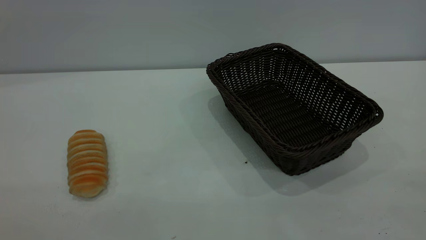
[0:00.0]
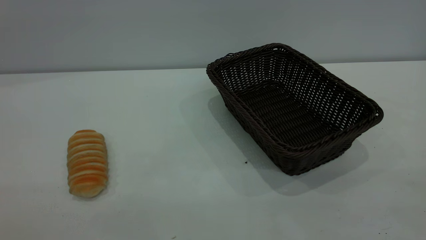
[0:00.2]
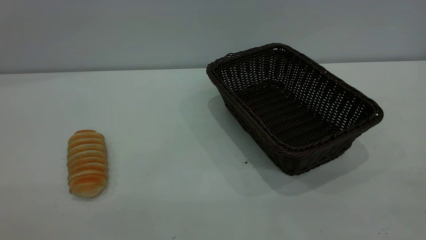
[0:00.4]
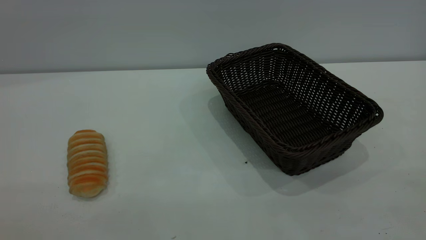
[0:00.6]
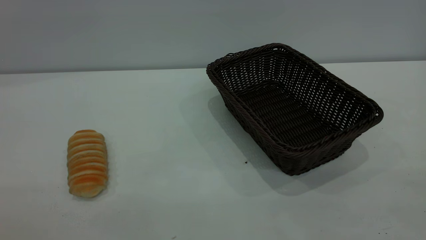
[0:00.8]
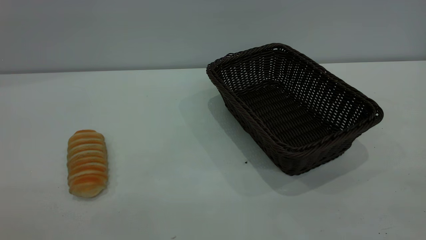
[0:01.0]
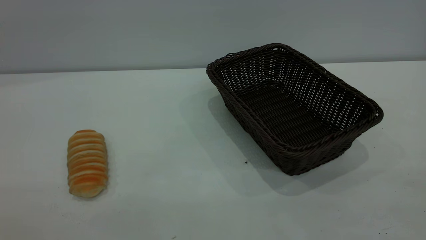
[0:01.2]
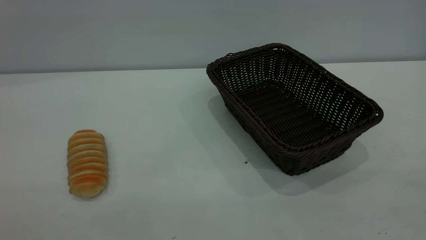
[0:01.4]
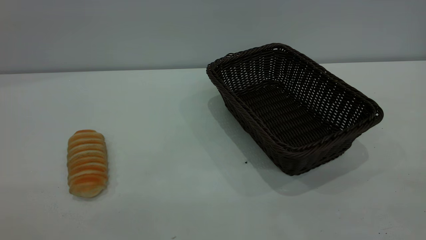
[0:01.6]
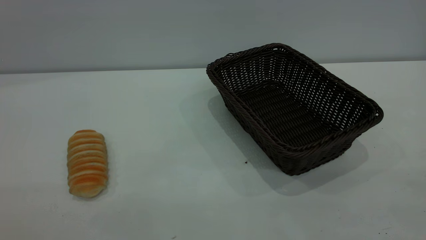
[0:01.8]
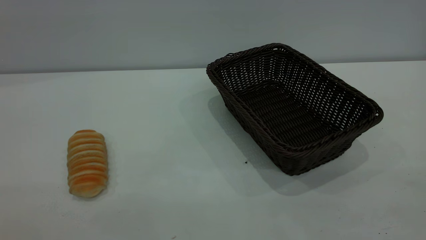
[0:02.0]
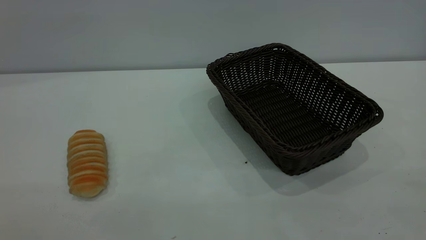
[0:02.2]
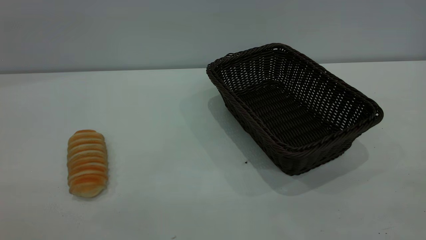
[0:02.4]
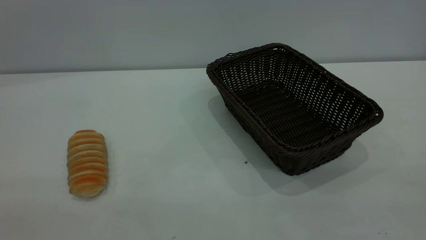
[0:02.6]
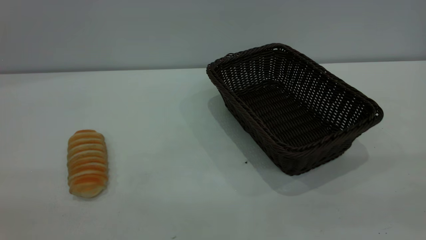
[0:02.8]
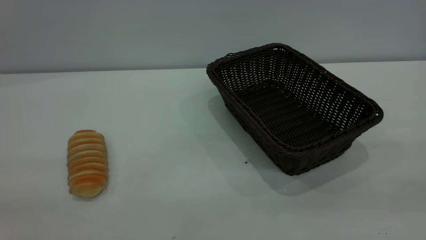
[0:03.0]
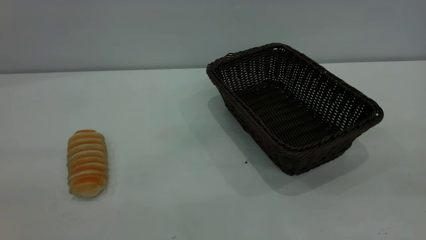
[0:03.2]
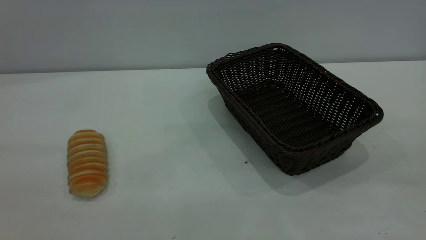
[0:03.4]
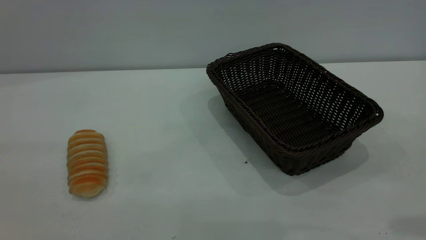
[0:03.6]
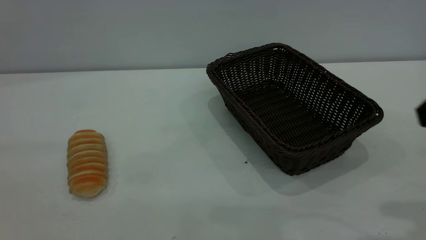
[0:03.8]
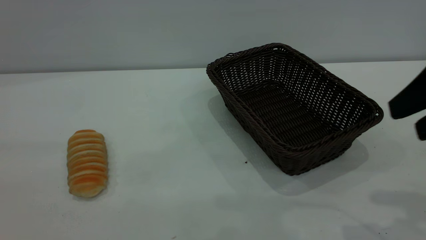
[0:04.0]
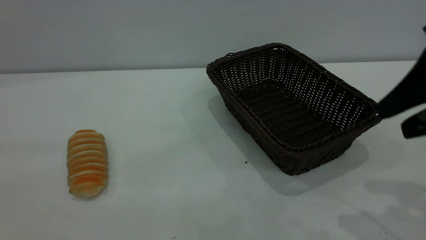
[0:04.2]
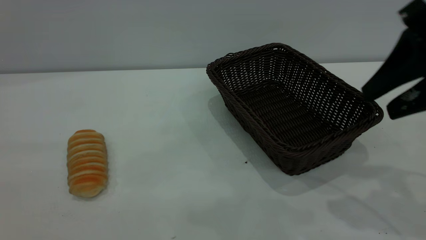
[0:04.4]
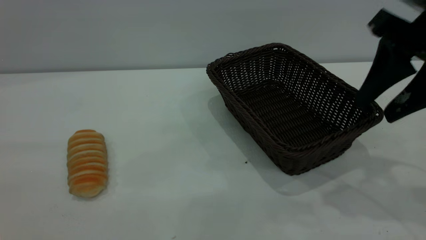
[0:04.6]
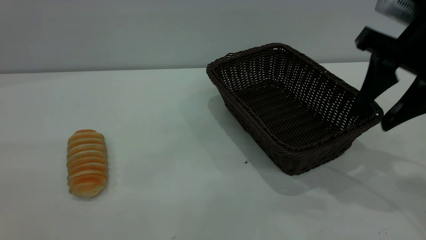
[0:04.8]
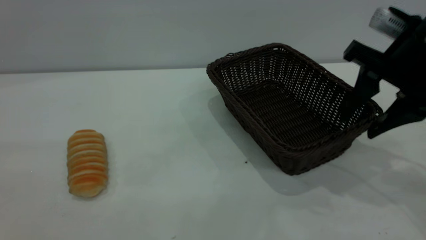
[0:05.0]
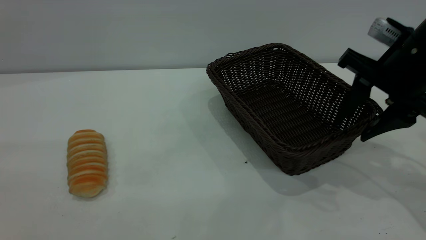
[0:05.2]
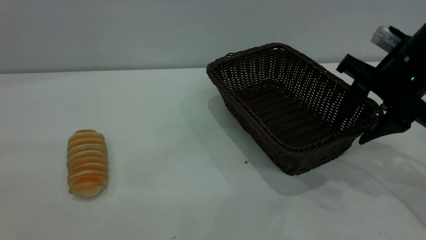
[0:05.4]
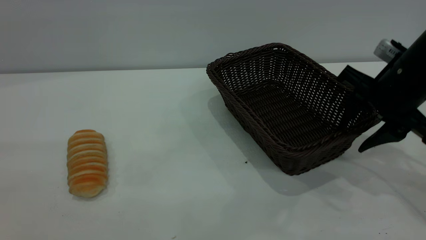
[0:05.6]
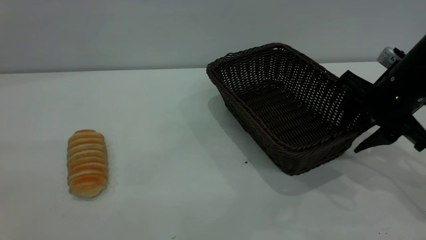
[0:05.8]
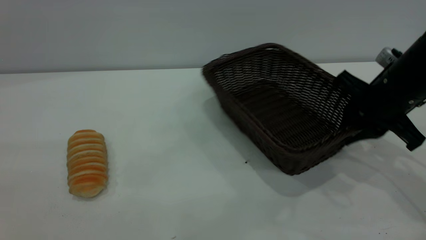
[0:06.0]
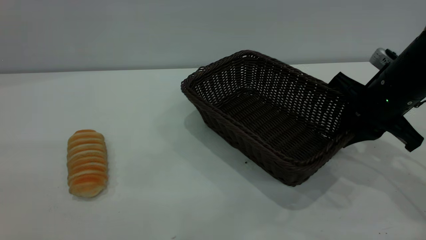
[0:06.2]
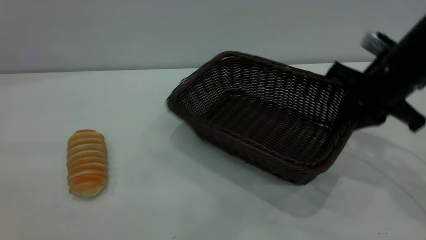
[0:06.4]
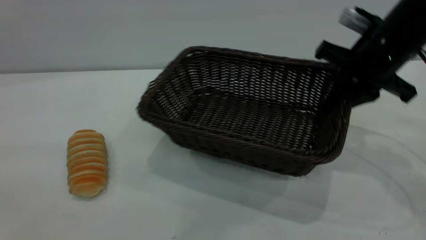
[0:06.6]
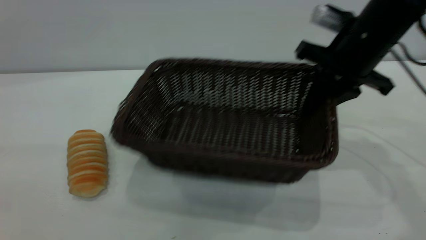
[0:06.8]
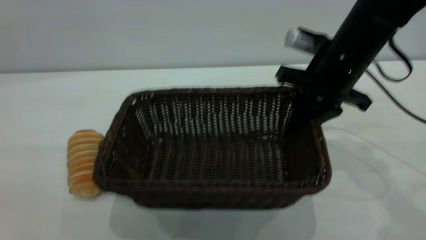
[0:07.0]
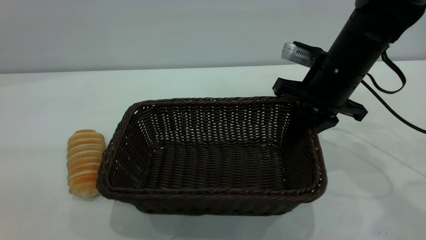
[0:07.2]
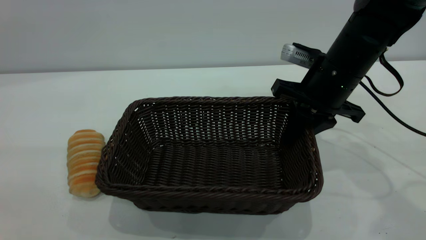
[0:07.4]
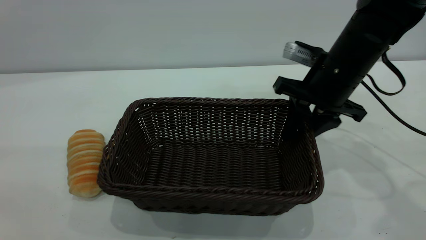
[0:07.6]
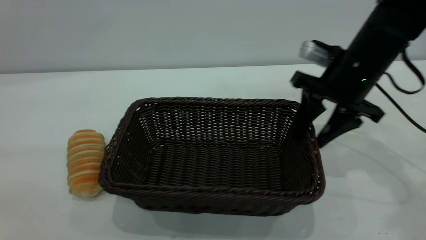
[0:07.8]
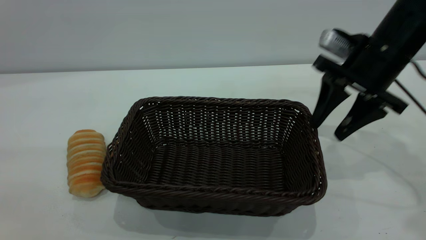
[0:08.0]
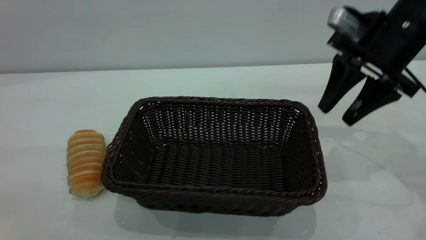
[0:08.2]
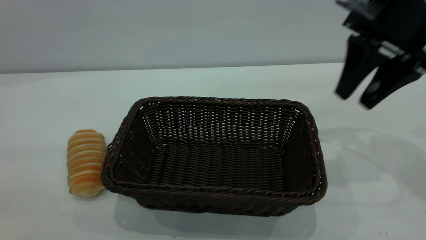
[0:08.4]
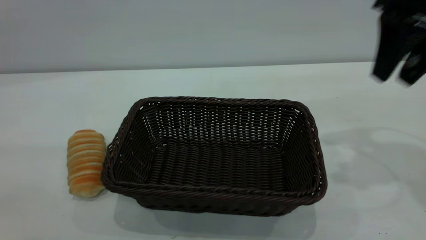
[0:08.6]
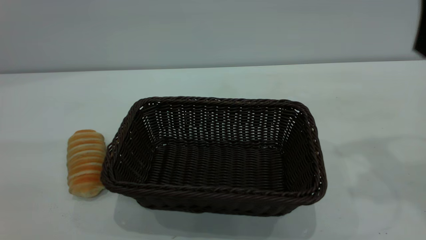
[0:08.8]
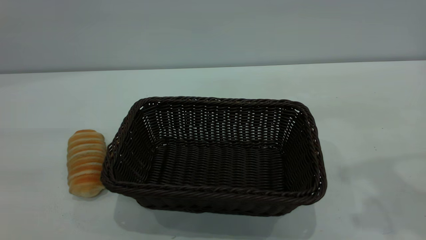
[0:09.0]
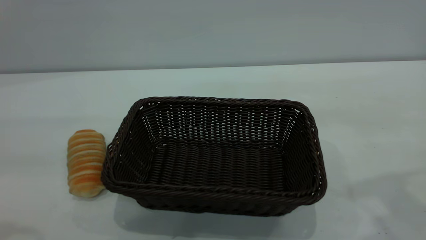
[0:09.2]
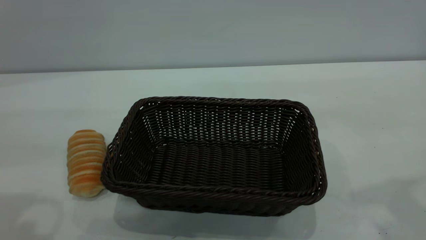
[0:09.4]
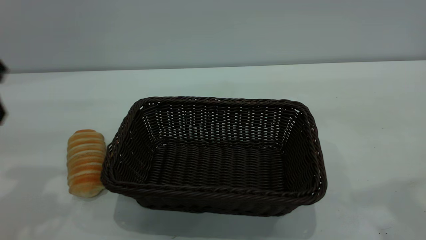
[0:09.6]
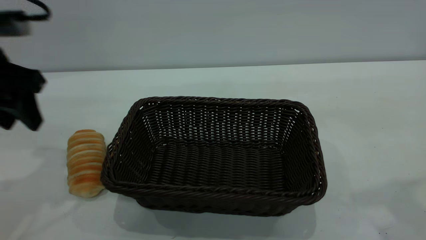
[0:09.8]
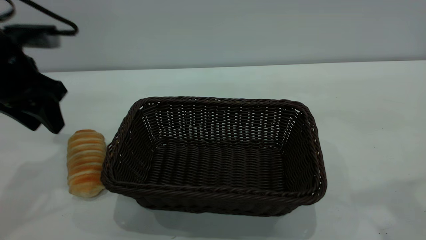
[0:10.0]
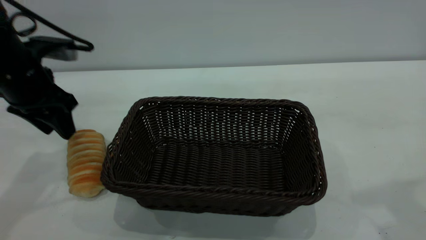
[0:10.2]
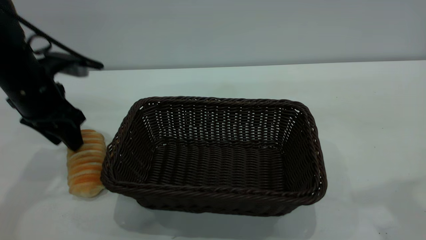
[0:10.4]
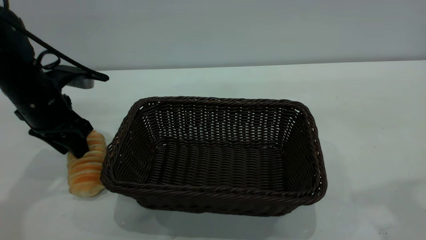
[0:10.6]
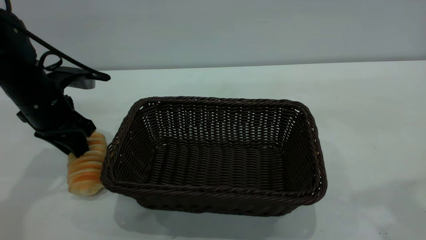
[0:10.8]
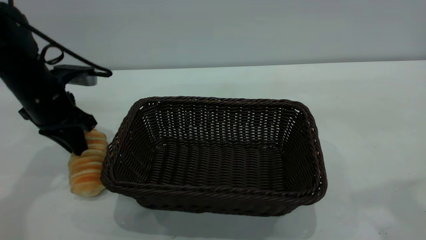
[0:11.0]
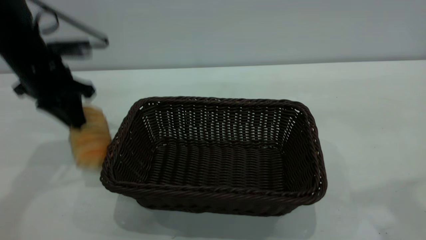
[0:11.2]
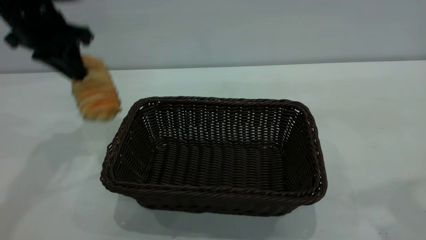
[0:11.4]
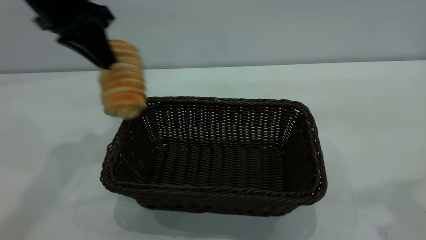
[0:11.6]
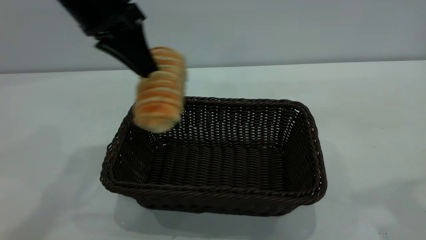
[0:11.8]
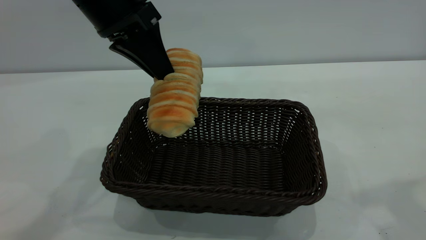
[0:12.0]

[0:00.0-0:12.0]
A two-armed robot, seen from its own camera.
Task of the whole recording: One hand grasps the black basket and places it in the middle of the table, while the other hand picks up the long bread and puts it into the black basket.
Step, 0:00.0 to 0:08.0: Move the basket to the center of view.
0:00.0 to 0:01.6: Both grippers stay about where they are.
0:03.0 to 0:04.4: The right gripper heads forward and downward, covering approximately 20 cm.
0:04.4 to 0:06.0: The right gripper goes approximately 15 cm downward and forward, and closes up.
0:06.0 to 0:07.6: The right gripper travels to the left by about 5 cm, and opens.
0:07.6 to 0:09.0: The right gripper heads upward and backward, covering about 25 cm, and opens, while the left gripper goes approximately 5 cm forward.
0:09.0 to 0:10.4: The left gripper travels forward and downward by about 30 cm.
0:10.4 to 0:12.0: The left gripper goes roughly 20 cm to the right and upward, and closes.

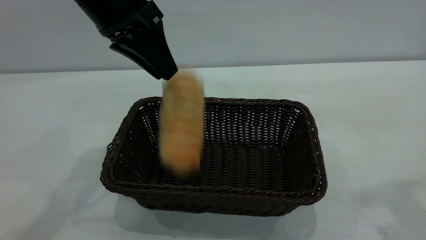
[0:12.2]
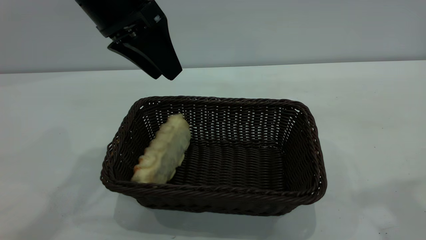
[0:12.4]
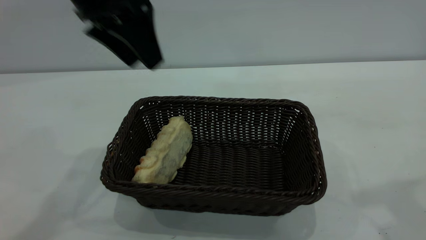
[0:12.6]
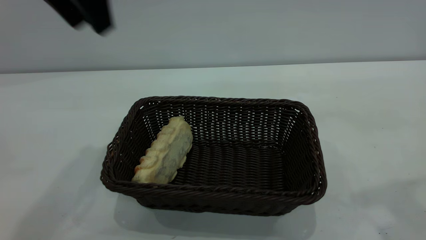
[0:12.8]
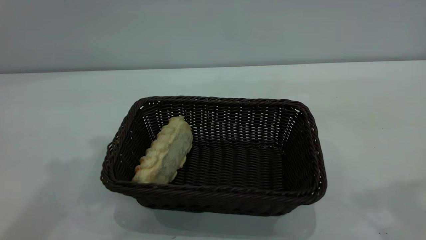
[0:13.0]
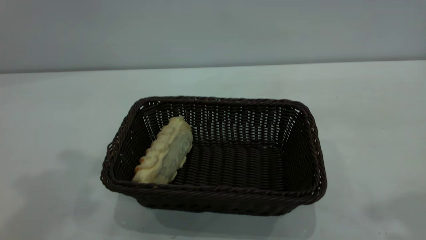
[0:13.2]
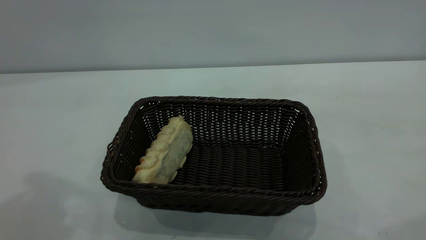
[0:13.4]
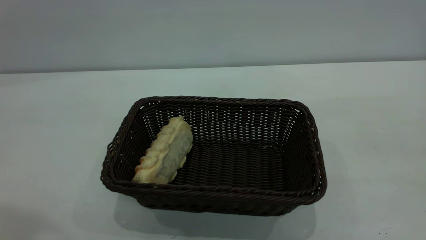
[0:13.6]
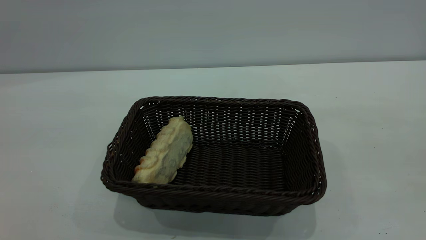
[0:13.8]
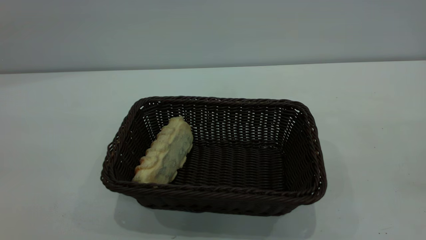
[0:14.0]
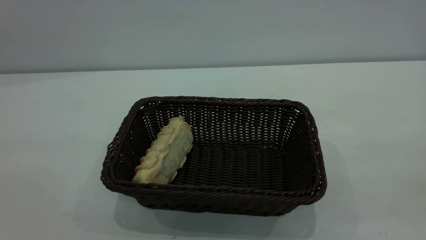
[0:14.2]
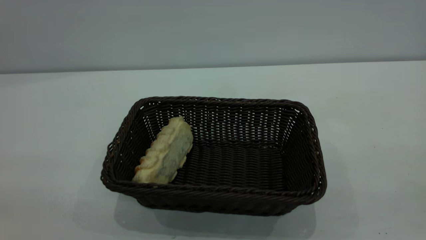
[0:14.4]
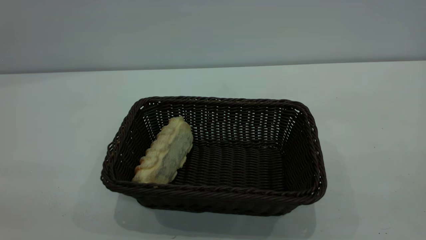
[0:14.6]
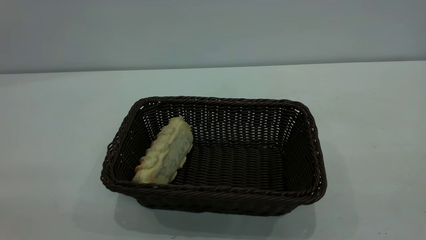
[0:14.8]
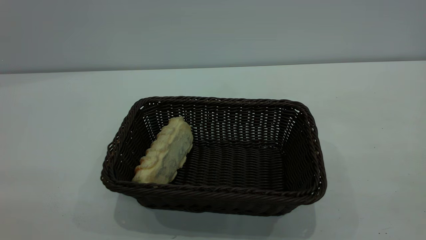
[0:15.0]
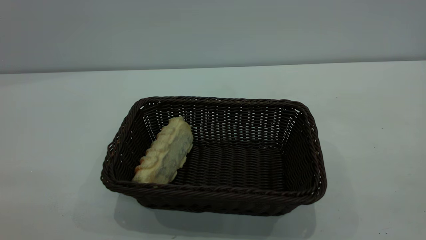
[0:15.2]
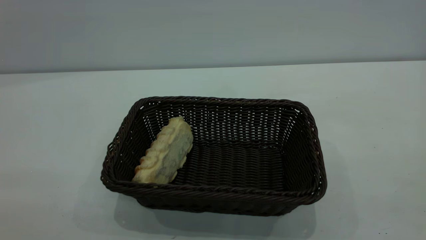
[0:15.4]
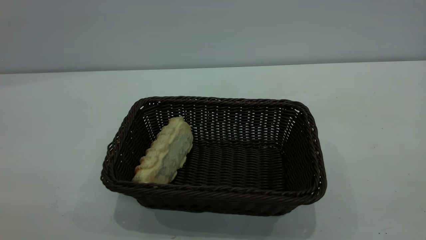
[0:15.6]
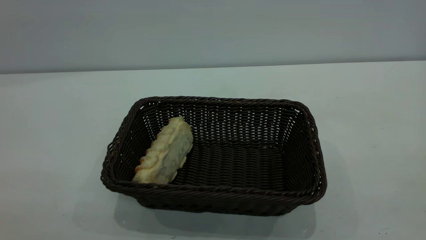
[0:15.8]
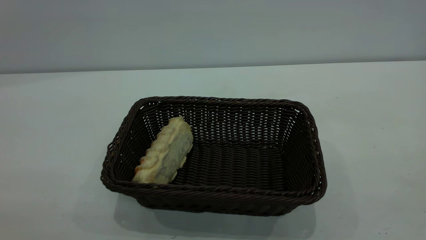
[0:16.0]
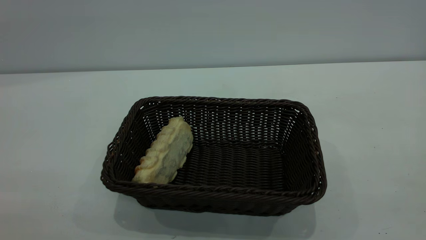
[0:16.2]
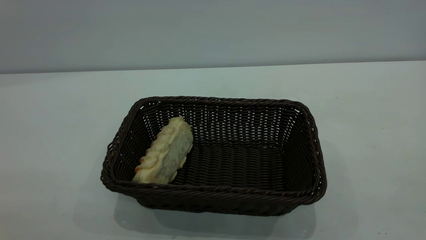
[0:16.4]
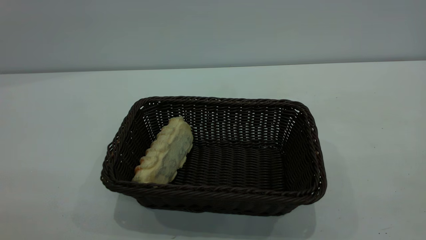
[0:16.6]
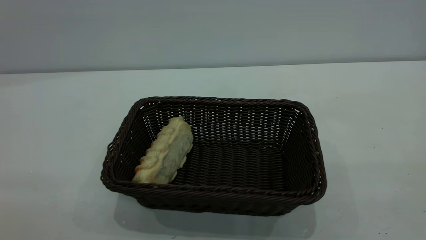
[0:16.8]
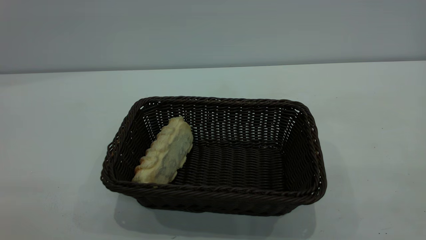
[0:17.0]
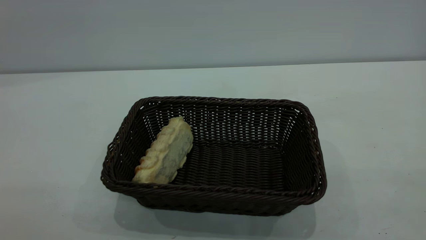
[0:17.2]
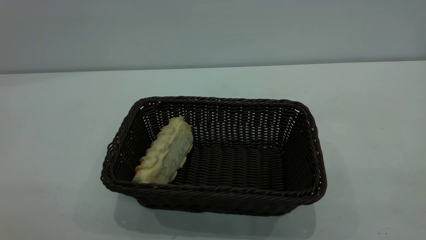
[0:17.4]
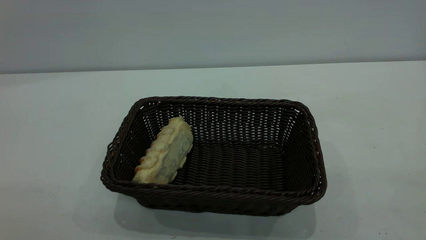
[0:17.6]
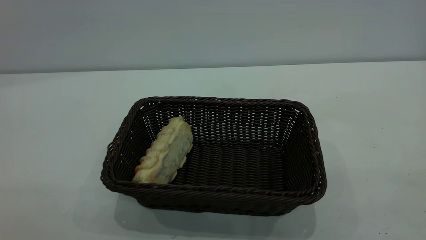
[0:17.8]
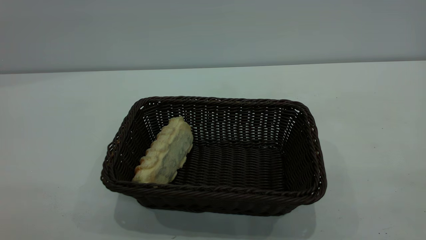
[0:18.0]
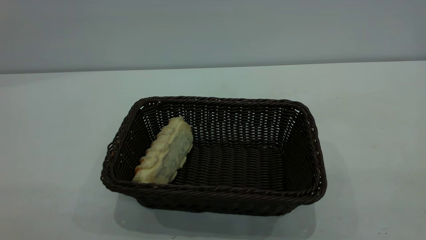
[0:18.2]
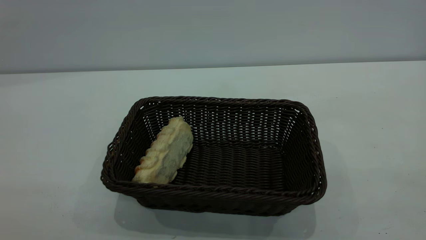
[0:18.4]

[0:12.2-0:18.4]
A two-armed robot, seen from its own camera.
Task of the whole recording: One hand grasps the black basket and places it in the middle of the table, while the other hand picks up the long bread and puts it into the black basket.
0:12.2 to 0:13.8: The right gripper heads backward, covering roughly 10 cm. The left gripper moves backward, upward and to the left, some 35 cm, and opens up.
